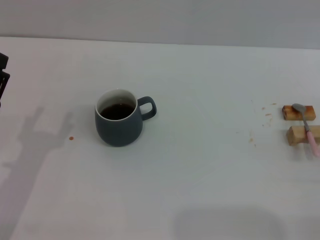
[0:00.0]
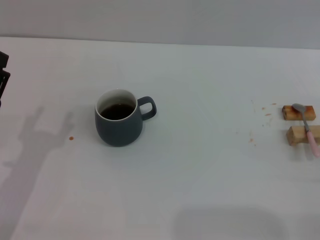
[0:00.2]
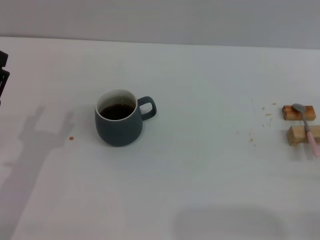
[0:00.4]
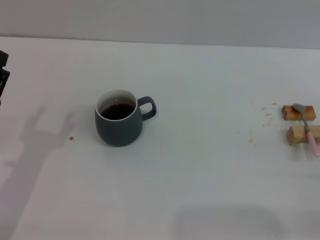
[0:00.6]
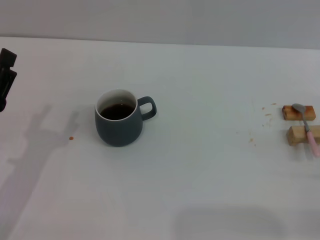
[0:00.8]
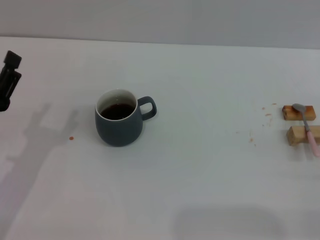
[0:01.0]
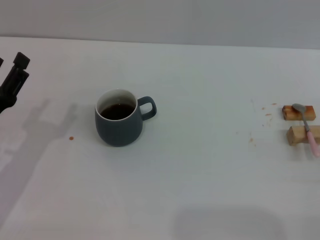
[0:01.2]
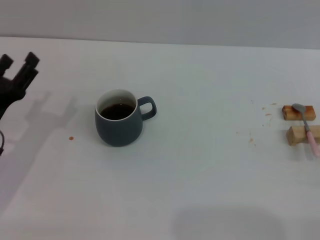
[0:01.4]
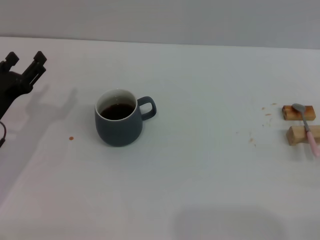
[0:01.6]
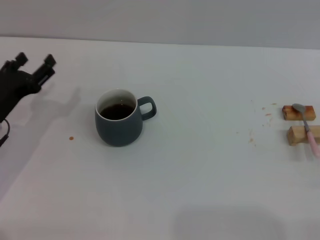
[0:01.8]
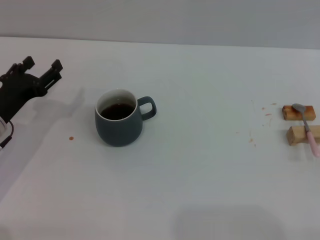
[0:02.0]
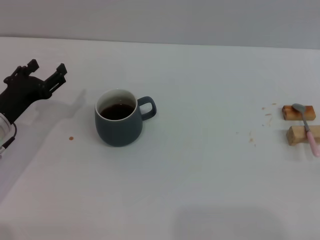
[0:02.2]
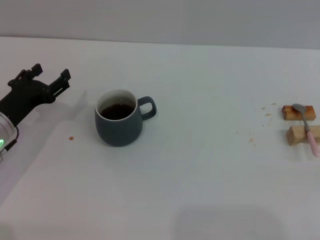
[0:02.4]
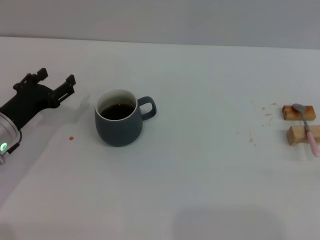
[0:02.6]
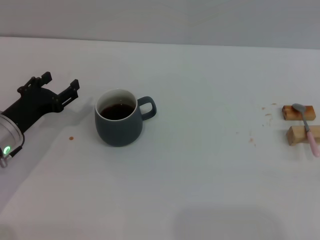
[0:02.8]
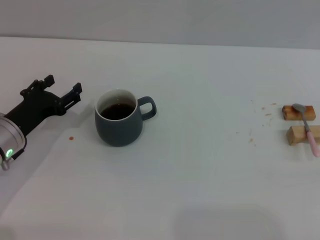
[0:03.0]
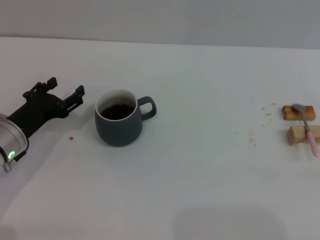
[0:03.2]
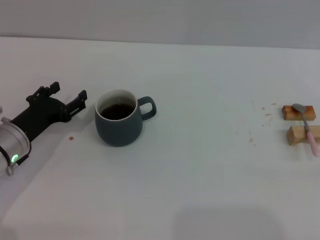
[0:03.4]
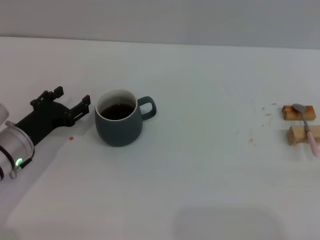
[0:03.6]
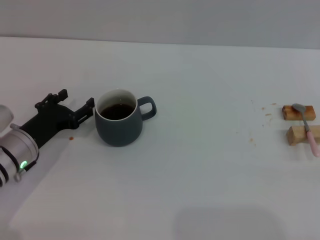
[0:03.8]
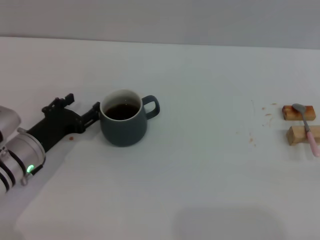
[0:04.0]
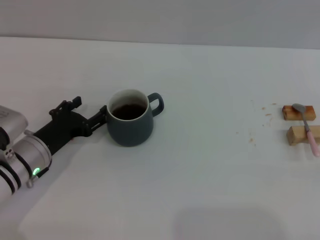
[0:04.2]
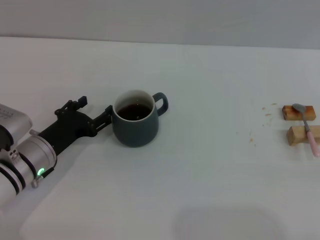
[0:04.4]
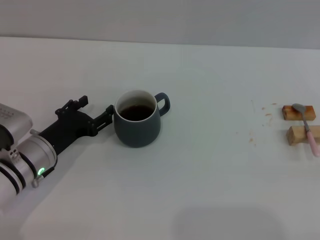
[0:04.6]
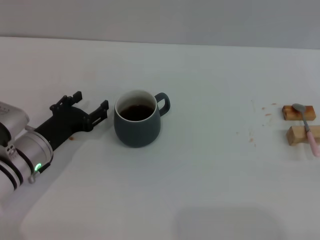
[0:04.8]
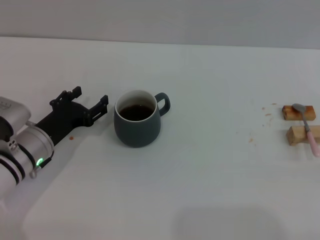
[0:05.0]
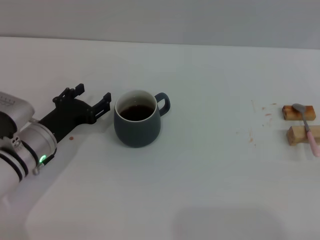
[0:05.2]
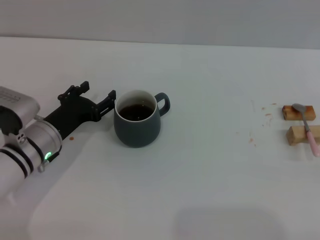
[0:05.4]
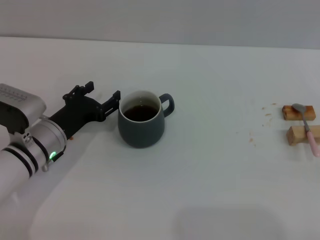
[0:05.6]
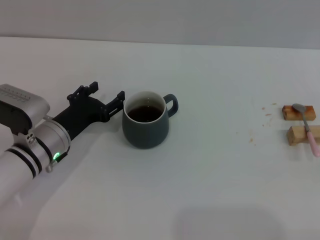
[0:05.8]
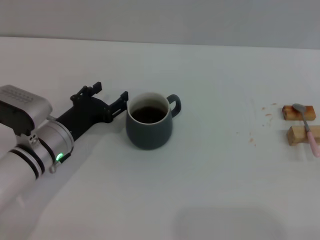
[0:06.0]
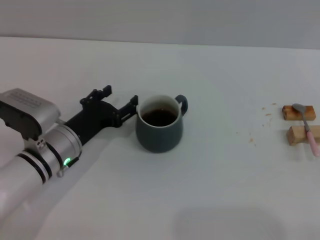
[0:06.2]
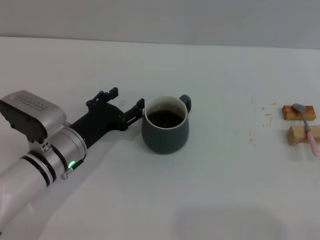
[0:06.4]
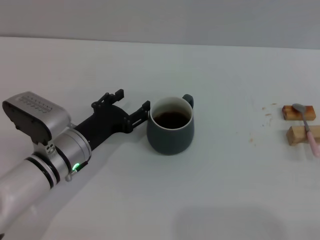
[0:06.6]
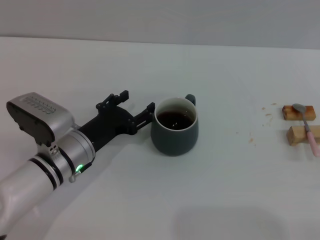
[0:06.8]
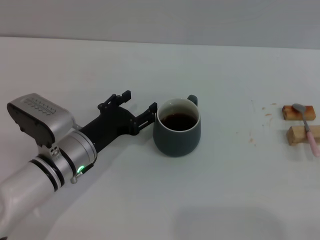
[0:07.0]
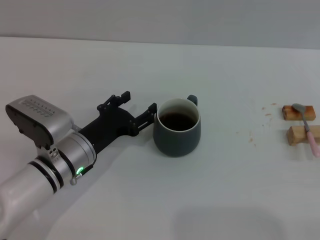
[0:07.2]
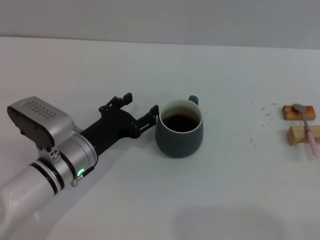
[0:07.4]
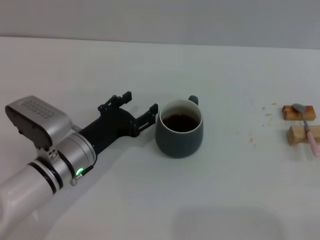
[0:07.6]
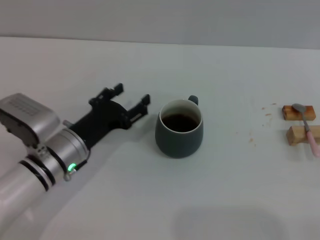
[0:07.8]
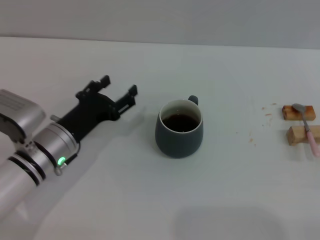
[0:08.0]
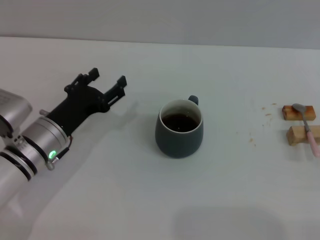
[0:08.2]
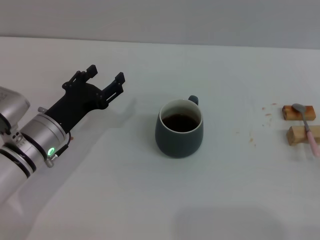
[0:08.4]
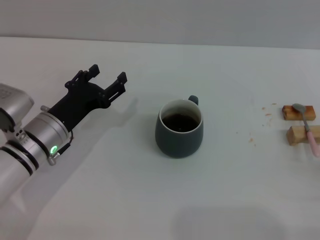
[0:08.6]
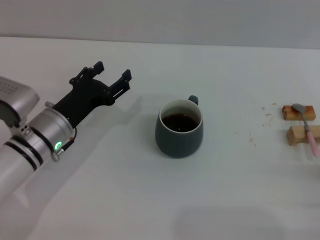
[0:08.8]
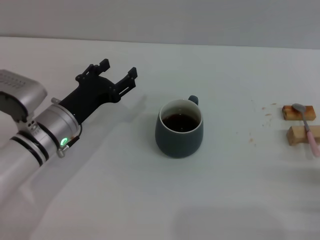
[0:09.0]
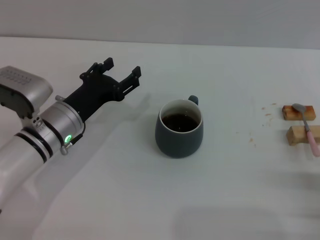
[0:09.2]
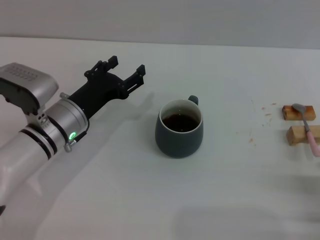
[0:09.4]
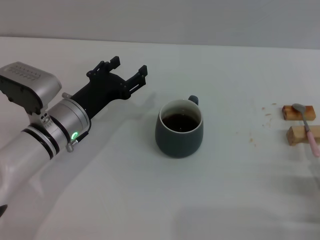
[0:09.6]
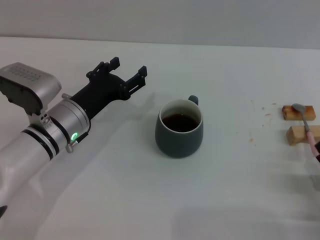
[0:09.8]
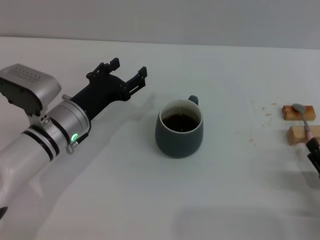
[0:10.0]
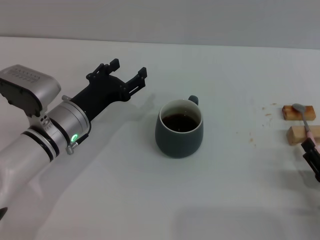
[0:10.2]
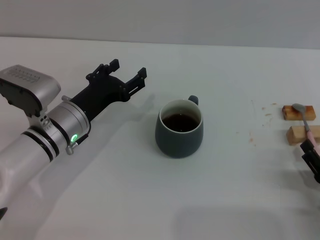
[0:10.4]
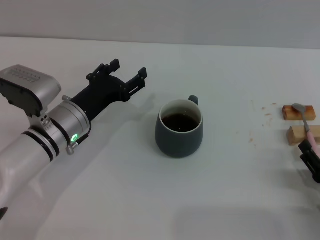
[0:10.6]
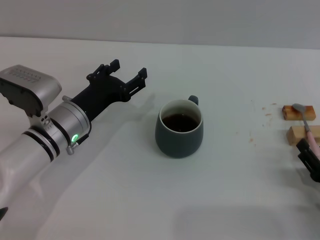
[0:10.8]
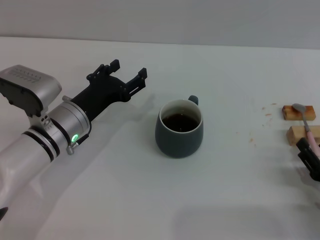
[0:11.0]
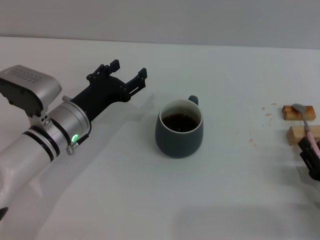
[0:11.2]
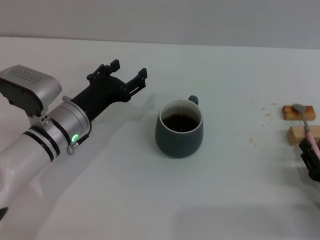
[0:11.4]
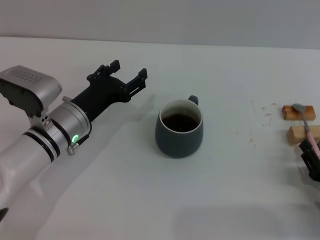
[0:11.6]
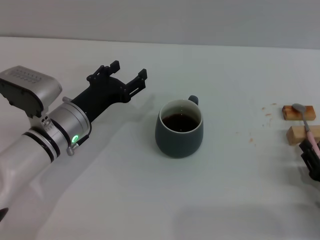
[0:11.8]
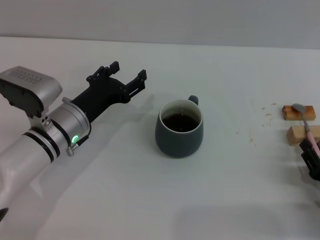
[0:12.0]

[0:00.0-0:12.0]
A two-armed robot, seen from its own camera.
Task of the whole recording: Move the grey cup to the center, lift the pink spoon, stir it three times in the cup, and put the spoon into the cup.
Step, 0:00.0 to 0:08.0: Move the cup with coffee to the center of view with the left gripper.
0:00.0 to 0:01.6: The left gripper shifts roughly 10 cm forward.
0:01.6 to 0:03.0: The grippers make only small movements.
0:03.0 to 0:04.4: The left gripper shifts by about 5 cm.
0:04.4 to 0:06.0: The grippers move only a little.
0:06.0 to 0:07.6: The grippers move only a little.
0:07.6 to 0:09.0: The right gripper heads to the left, covering approximately 5 cm.
0:09.0 to 0:10.4: The grippers stay close to where they were, moving slightly.
0:10.4 to 0:12.0: The right gripper closes up.

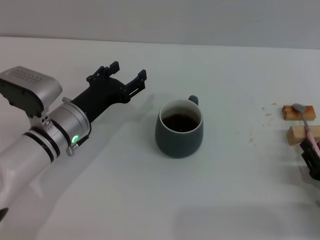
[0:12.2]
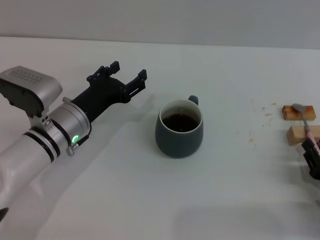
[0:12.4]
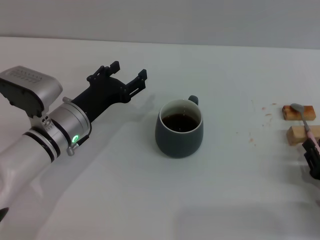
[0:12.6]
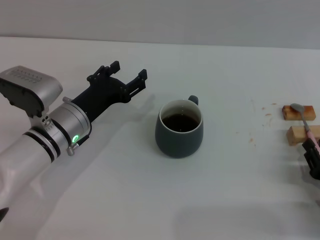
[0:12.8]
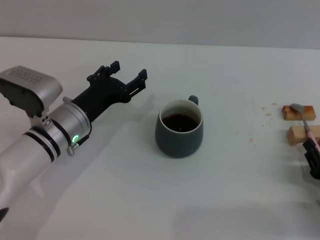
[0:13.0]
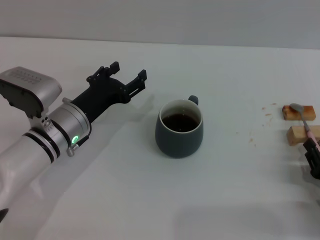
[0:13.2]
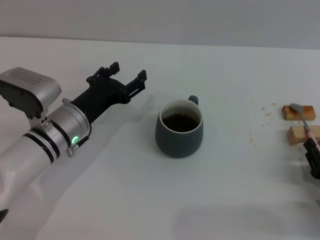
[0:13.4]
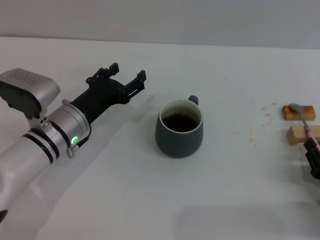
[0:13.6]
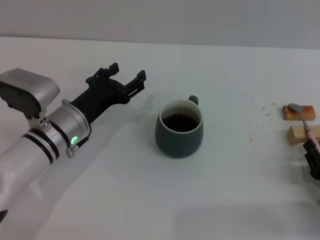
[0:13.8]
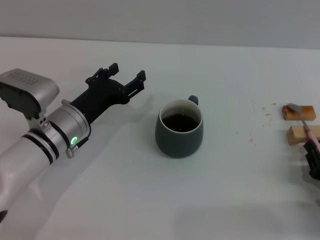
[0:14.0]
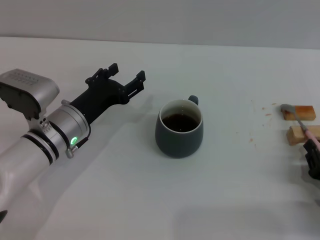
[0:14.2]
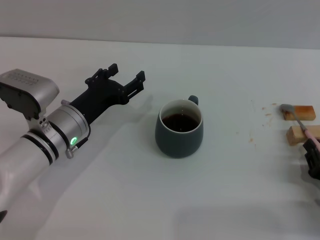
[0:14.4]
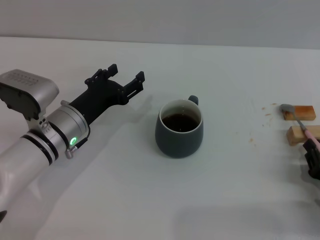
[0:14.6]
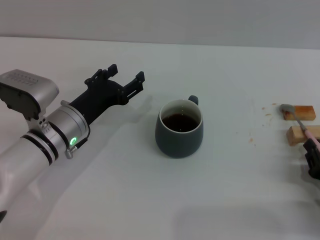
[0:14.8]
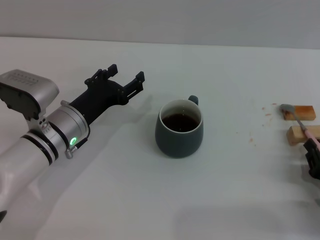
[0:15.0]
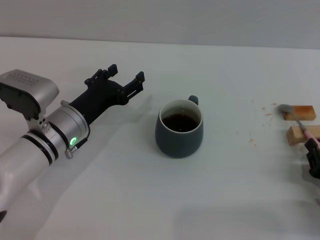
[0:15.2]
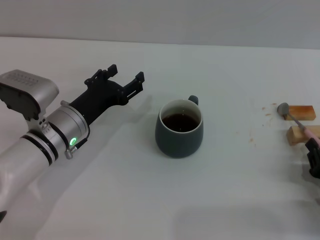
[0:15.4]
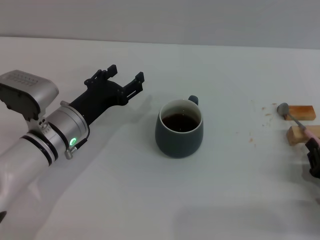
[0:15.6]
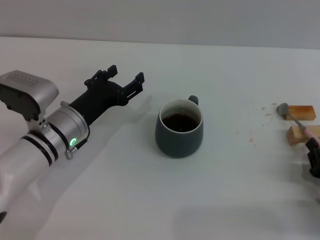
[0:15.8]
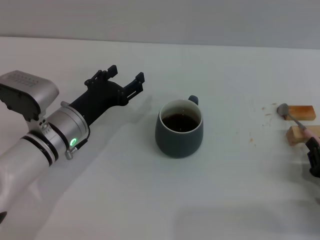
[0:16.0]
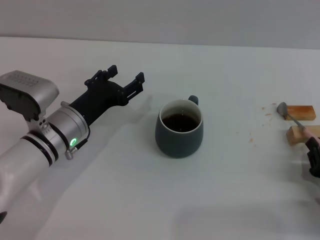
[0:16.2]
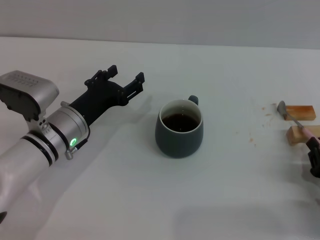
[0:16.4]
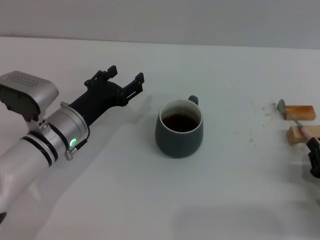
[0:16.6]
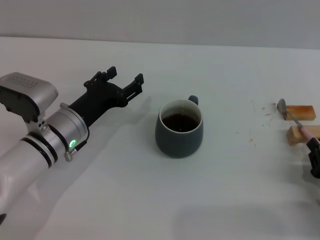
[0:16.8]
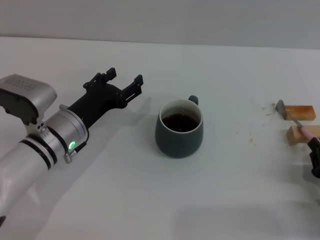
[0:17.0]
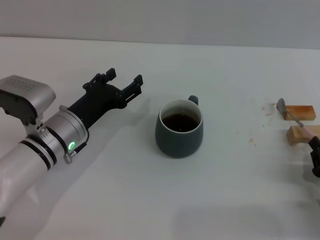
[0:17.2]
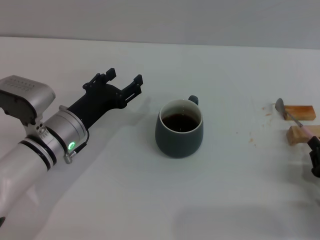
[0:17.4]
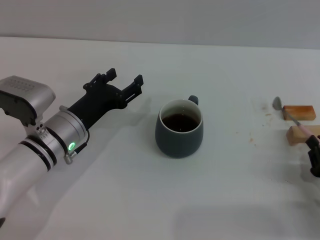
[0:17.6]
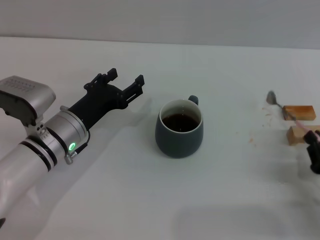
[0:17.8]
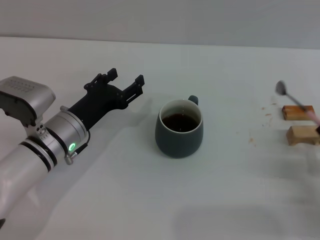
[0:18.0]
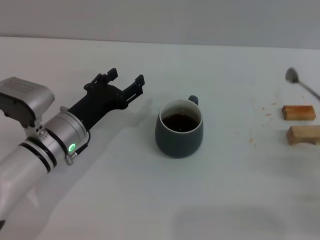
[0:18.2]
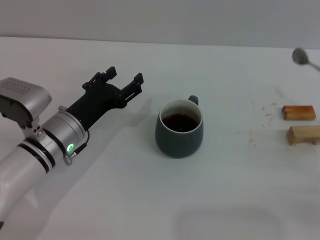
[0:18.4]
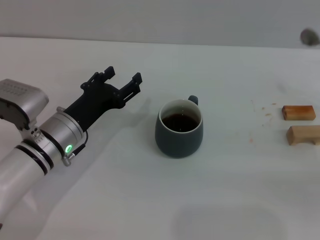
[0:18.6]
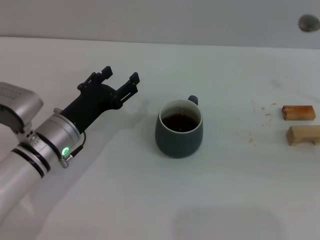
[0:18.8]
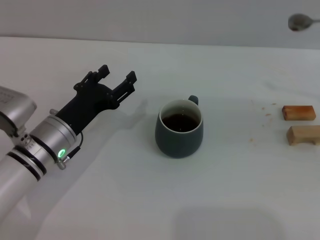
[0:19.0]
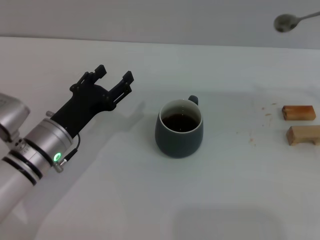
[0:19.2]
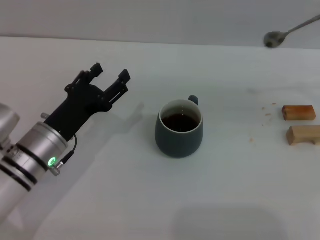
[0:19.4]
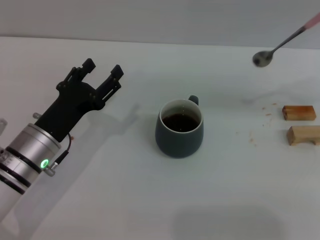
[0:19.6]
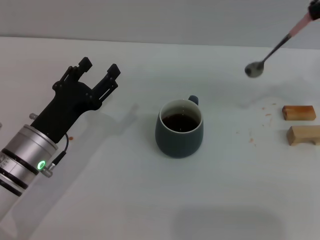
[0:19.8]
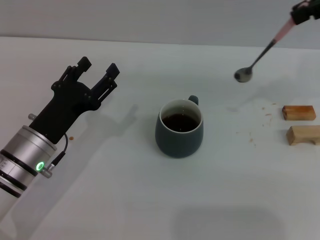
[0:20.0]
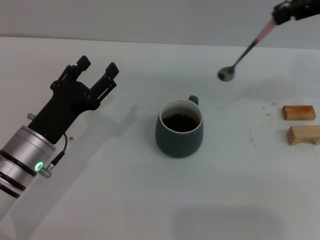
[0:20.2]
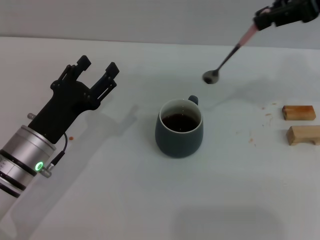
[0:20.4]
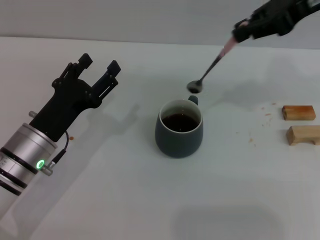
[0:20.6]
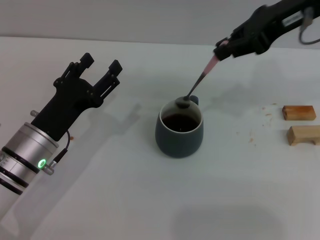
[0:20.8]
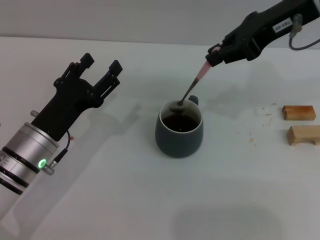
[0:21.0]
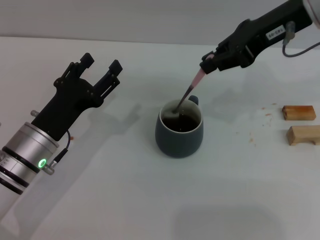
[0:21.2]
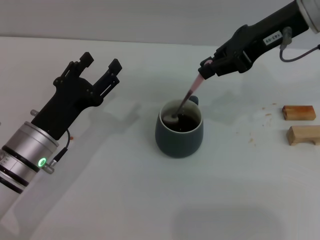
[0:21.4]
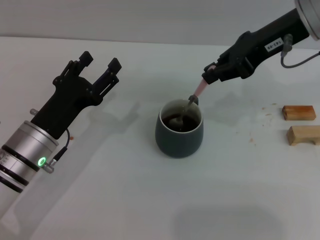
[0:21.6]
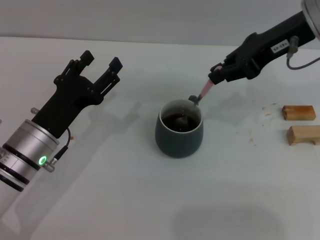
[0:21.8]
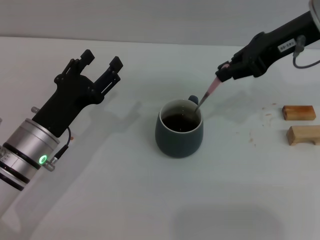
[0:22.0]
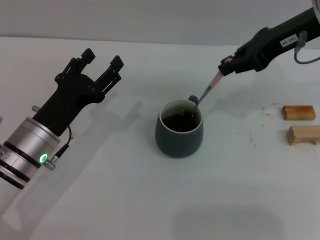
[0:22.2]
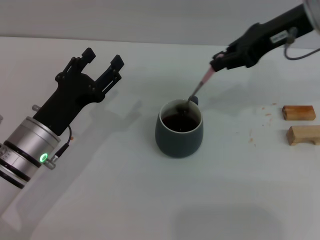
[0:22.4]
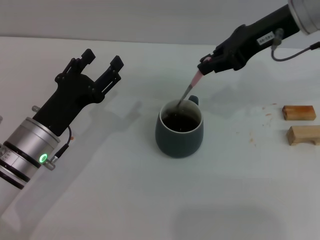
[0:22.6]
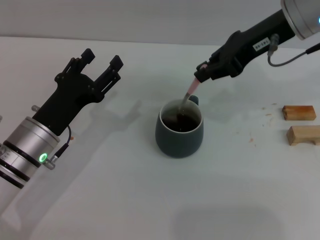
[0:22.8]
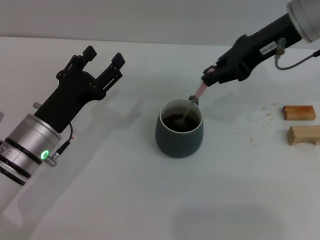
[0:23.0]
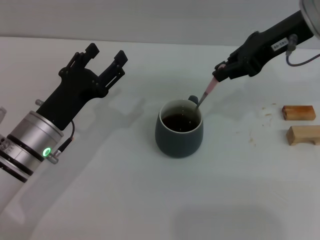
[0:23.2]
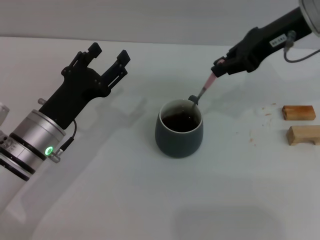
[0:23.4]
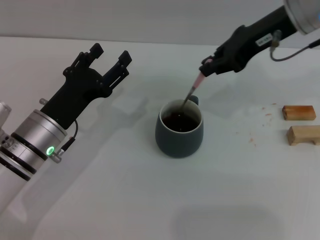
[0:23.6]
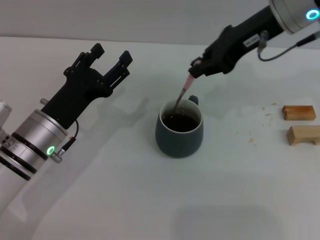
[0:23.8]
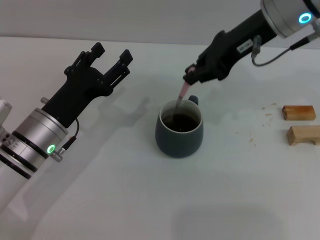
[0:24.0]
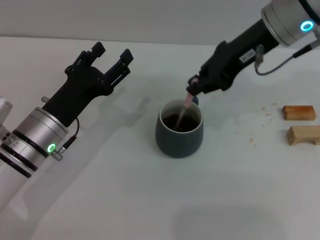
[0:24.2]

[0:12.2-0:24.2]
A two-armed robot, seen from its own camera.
Task of the whole recording: Move the grey cup to the center, lift the pink spoon, stir it three times in the cup, and put the spoon into the cup.
Step, 0:12.2 to 0:18.2: Pick up the spoon with the right gripper.
0:12.2 to 0:16.6: Neither gripper changes place.
0:16.6 to 0:18.2: The right gripper shifts by approximately 5 cm.
0:18.2 to 0:19.8: The right gripper shifts roughly 40 cm upward and forward. The left gripper moves approximately 5 cm.
0:19.8 to 0:21.2: The right gripper moves to the left and downward, approximately 15 cm.
0:21.2 to 0:24.2: The grippers move only a little.
